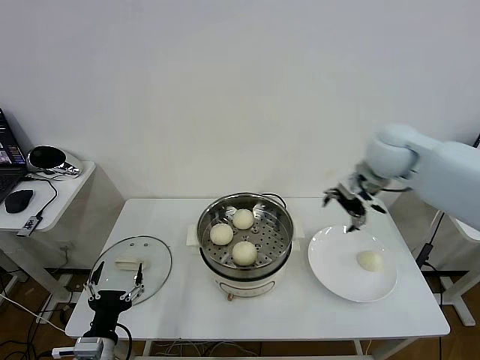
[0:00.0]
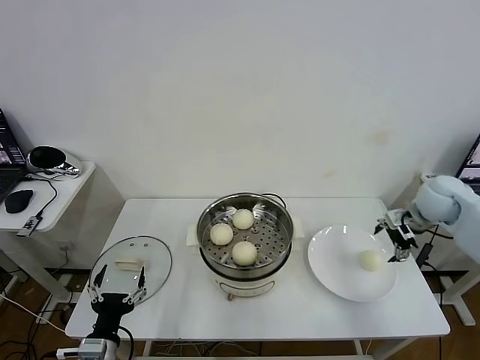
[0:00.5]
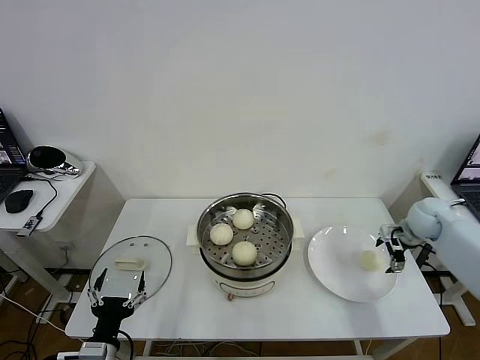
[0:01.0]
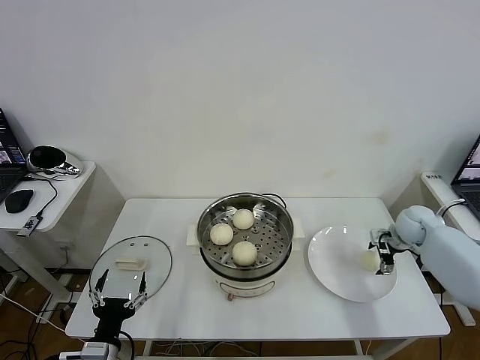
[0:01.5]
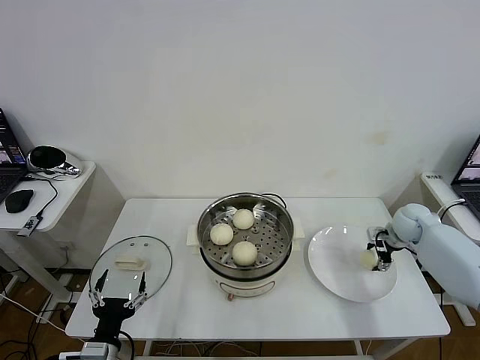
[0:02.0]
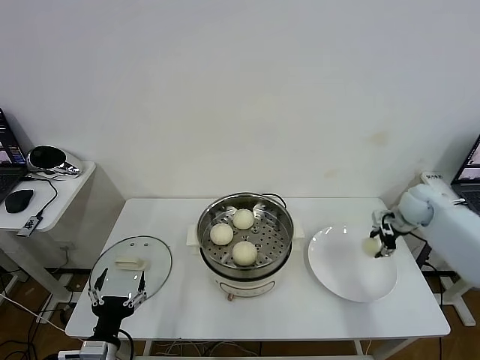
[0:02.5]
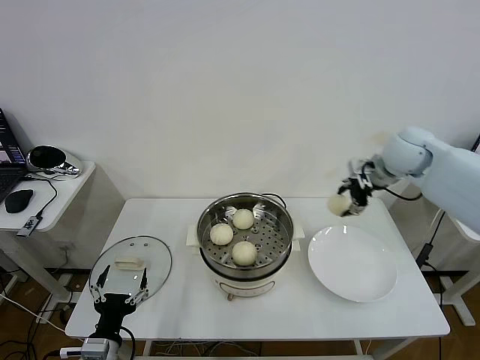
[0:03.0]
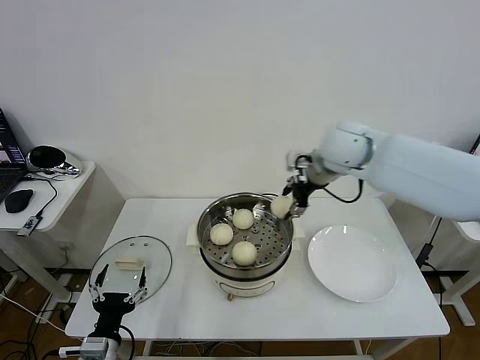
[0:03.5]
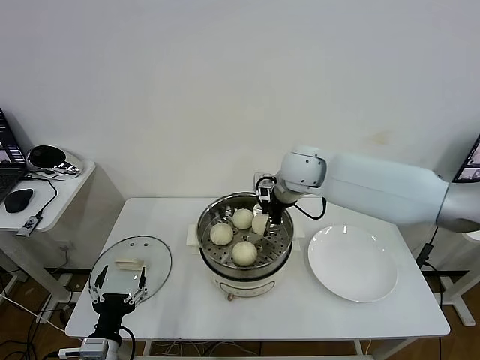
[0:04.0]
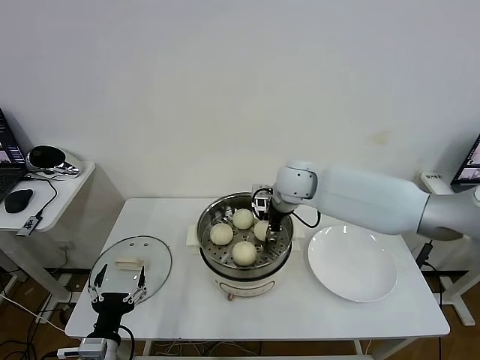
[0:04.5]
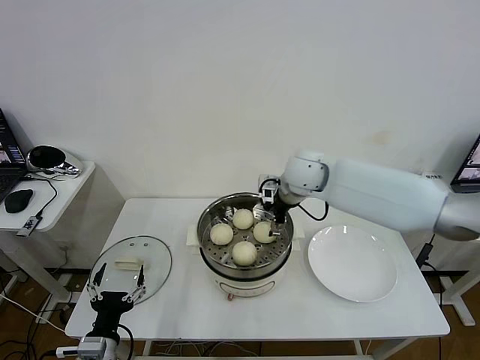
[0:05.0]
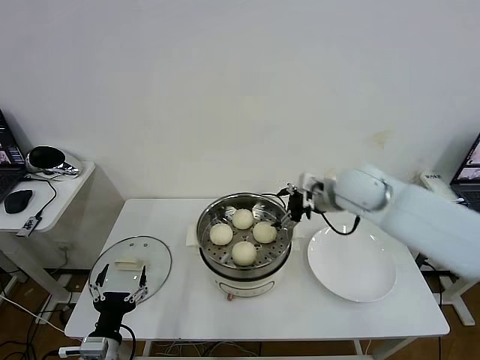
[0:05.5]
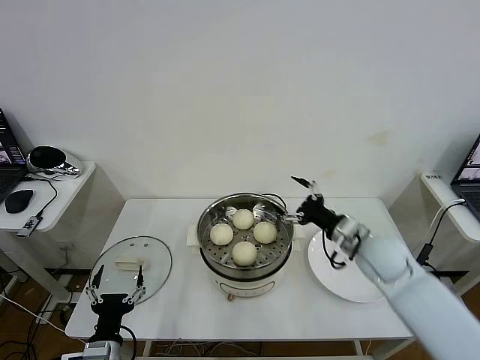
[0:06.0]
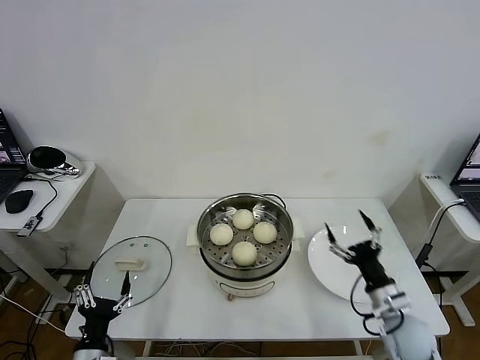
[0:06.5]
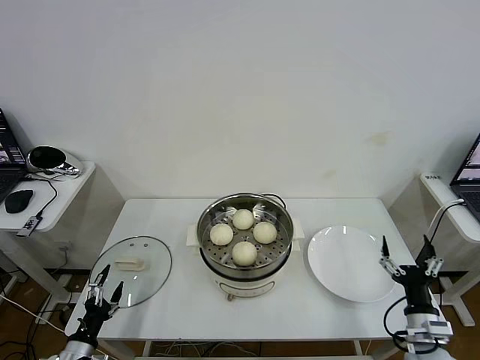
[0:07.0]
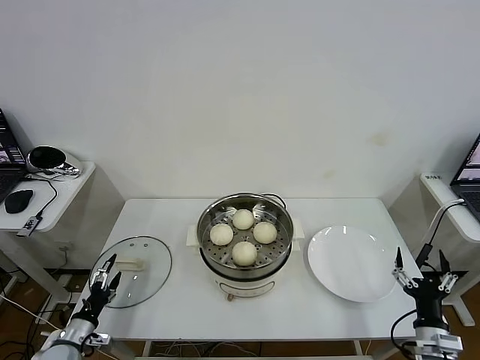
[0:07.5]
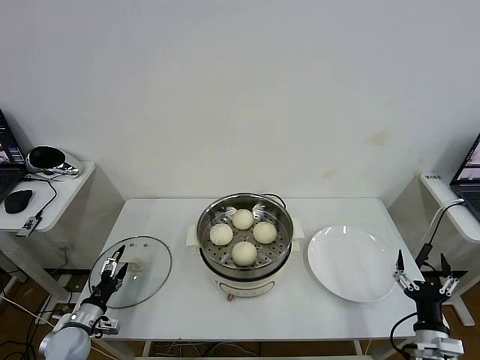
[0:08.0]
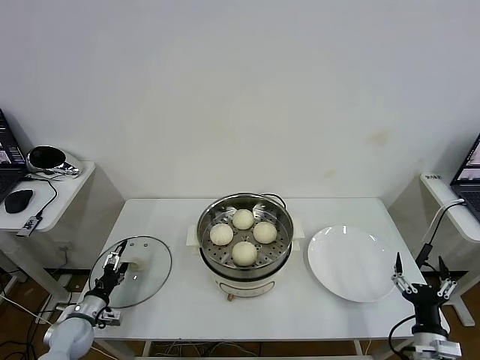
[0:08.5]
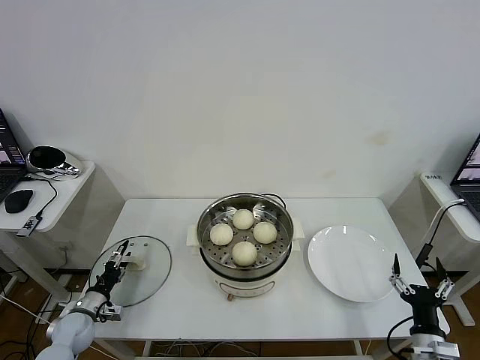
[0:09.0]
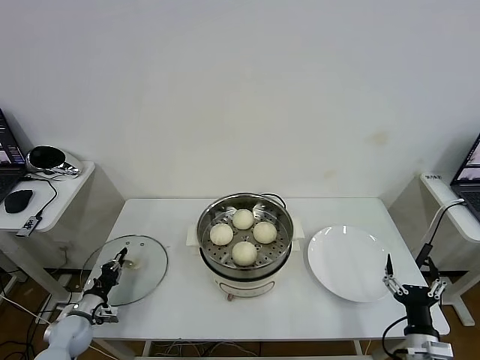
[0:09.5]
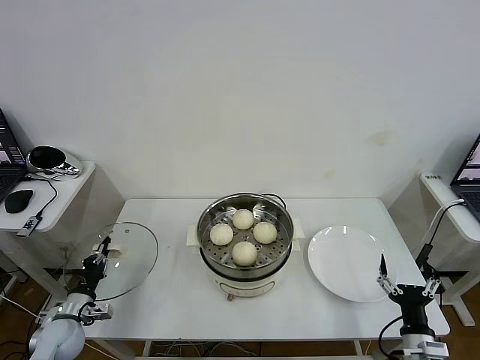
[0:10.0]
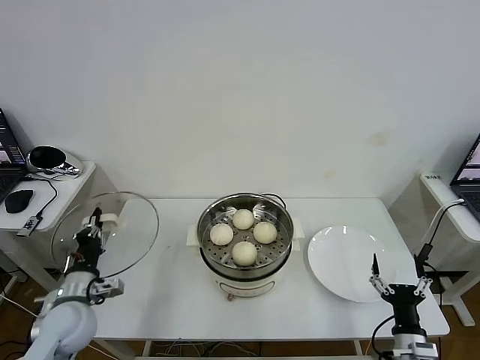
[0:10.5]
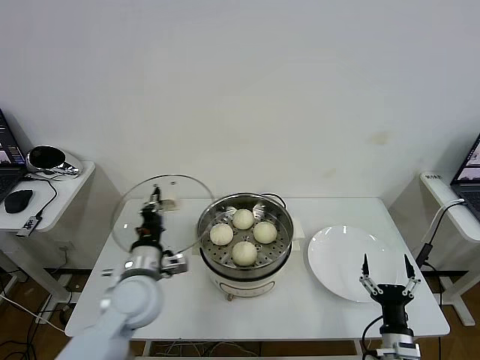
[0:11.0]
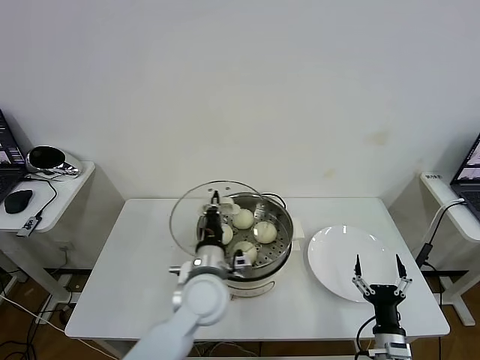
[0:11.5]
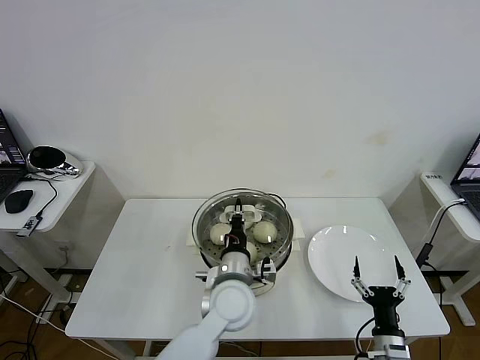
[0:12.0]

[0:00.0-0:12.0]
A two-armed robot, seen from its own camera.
Task of the whole recording: take steamed baozi put them in steamer then cover it.
Step, 0:00.0 to 0:02.0: Grasp the baozi in the plate with right gripper.
Step, 0:02.5 to 0:05.0: Place the baozi on the steamer with right gripper.
Step, 0:05.5 to 0:09.5: Grasp the pot lid with left gripper.
0:00.0 to 0:02.0: The right gripper shifts roughly 25 cm downward and to the right, and closes up.
0:02.0 to 0:04.0: The right gripper heads to the left and upward, covering some 35 cm.
0:04.0 to 0:06.0: The right gripper moves to the right, backward and downward, roughly 25 cm, and opens up.
0:06.0 to 0:08.0: The right gripper moves backward, downward and to the right, some 25 cm; the left gripper moves to the left, forward and downward, about 20 cm.
0:08.0 to 0:10.0: The left gripper closes its fingers.
0:10.0 to 0:12.0: The left gripper moves to the right, roughly 40 cm. Meanwhile the right gripper changes place by roughly 5 cm.

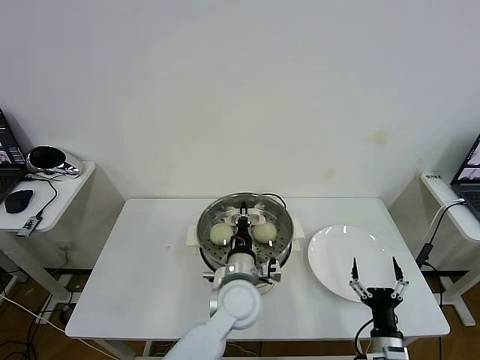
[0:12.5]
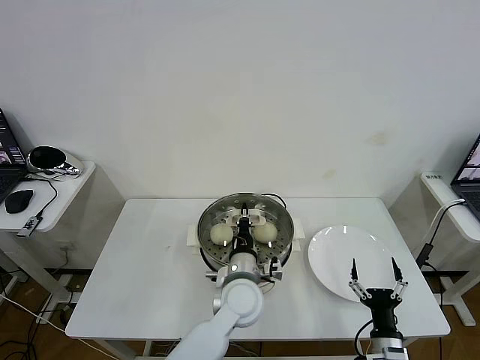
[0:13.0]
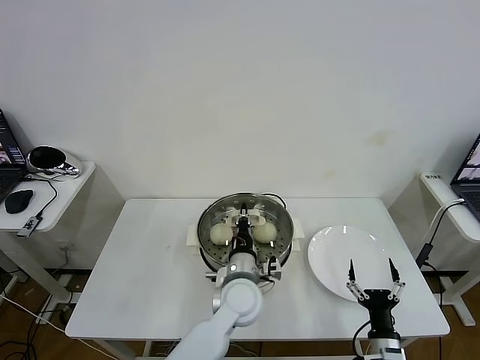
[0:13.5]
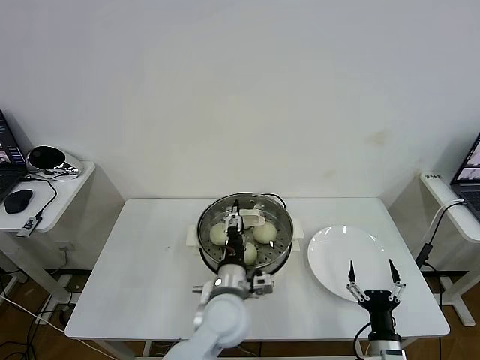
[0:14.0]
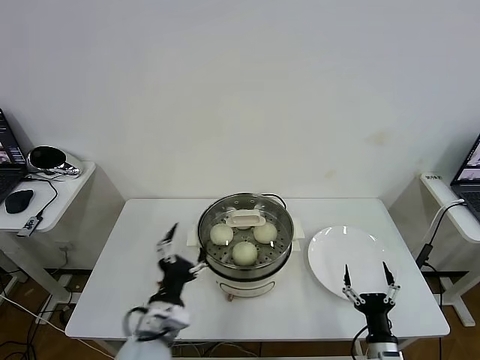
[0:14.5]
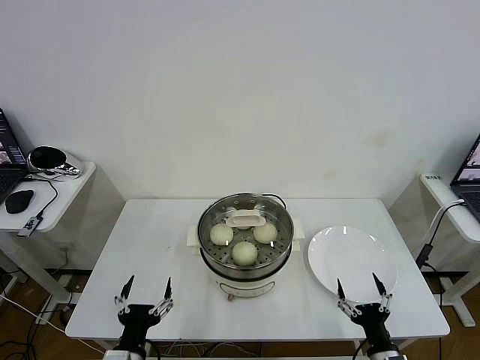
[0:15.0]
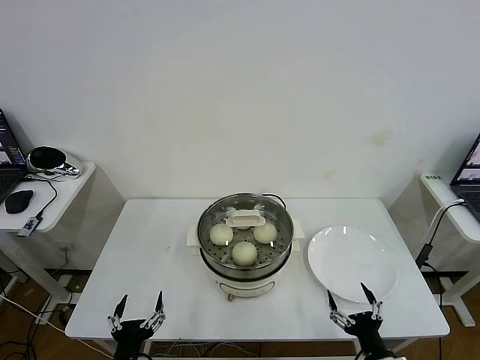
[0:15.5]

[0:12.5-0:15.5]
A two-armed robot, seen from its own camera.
Task of the whole recording: take steamed baozi put them in steamer then cover it.
0:12.5 to 0:14.0: The left gripper opens.
0:14.0 to 0:15.5: The left gripper moves to the left and backward, about 30 cm, and opens.
